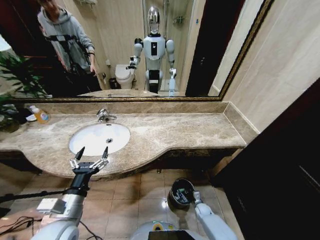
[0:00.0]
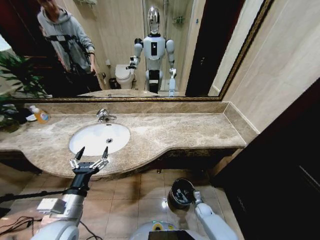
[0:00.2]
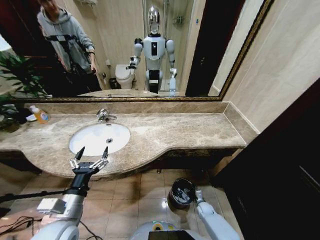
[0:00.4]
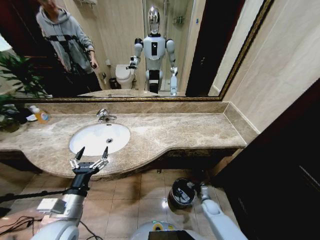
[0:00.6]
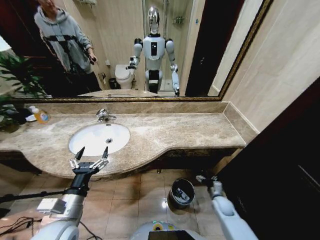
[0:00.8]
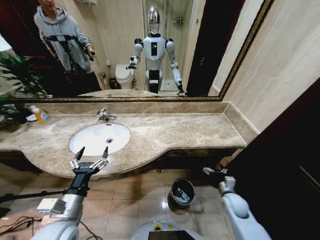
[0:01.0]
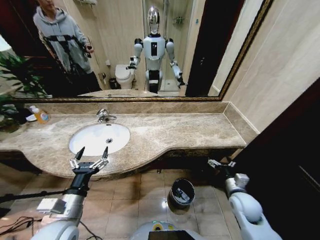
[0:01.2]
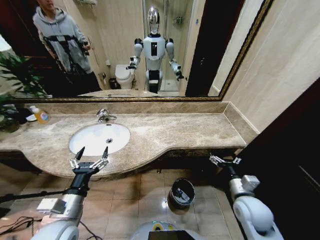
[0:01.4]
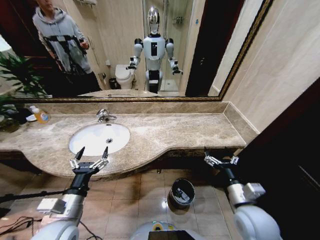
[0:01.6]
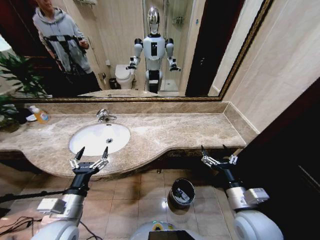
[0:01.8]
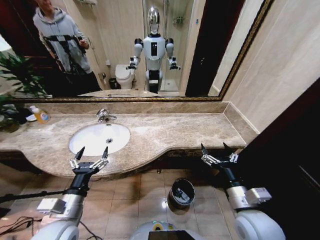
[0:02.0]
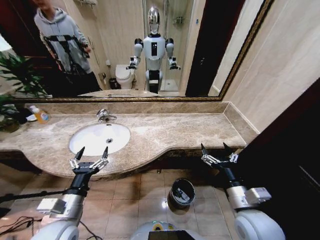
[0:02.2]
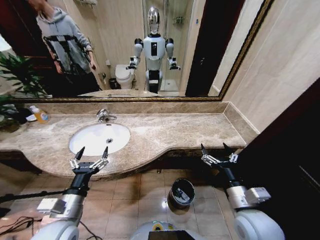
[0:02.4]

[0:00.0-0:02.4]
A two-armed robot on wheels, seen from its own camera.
Task of the whole recording: Pick up the trash from the sink and place it in the trash bin.
0:00.0 to 0:01.2: The right gripper travels upward by some 30 cm, and opens up.
0:01.2 to 0:02.4: The right gripper shifts about 15 cm upward, to the left and backward.

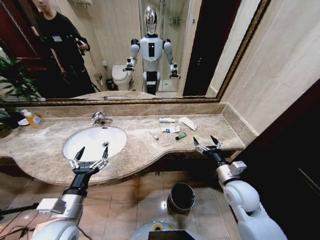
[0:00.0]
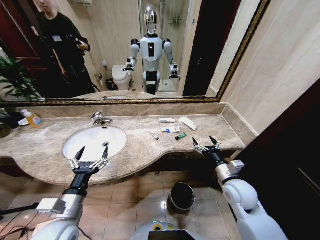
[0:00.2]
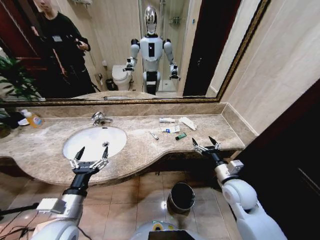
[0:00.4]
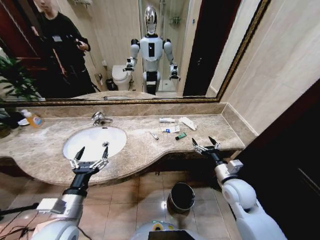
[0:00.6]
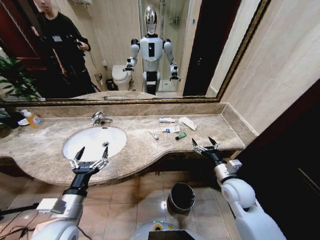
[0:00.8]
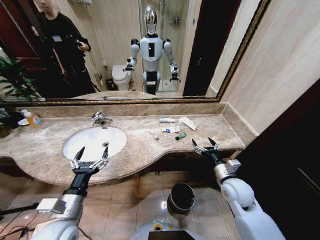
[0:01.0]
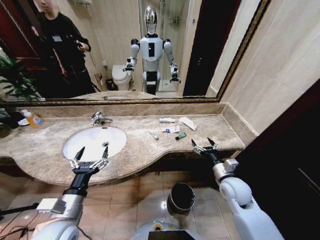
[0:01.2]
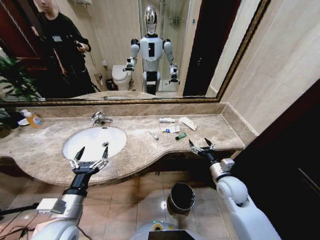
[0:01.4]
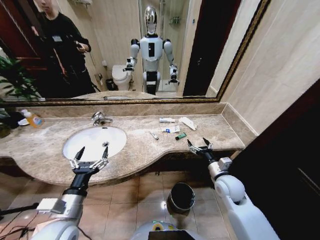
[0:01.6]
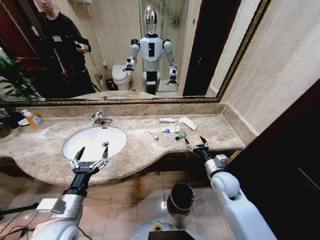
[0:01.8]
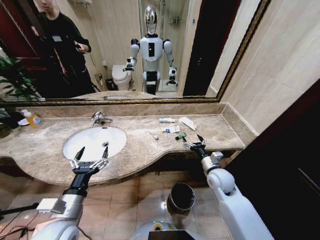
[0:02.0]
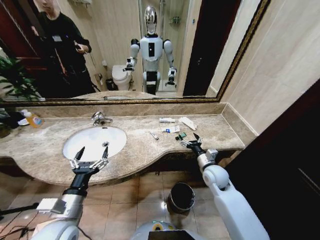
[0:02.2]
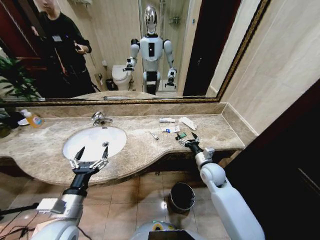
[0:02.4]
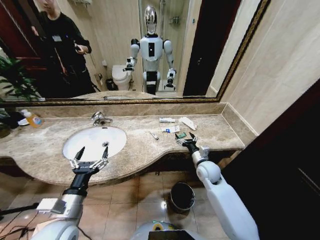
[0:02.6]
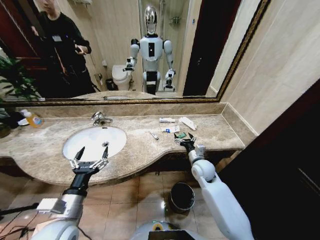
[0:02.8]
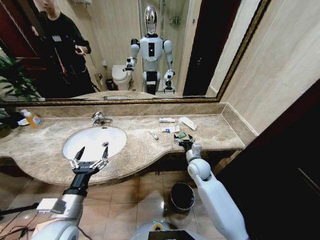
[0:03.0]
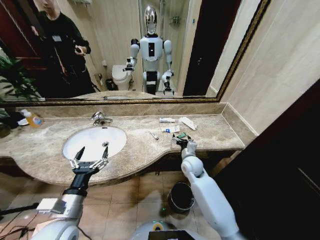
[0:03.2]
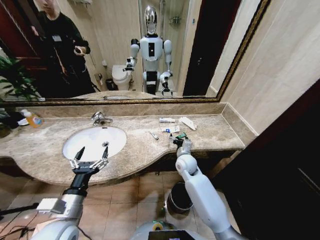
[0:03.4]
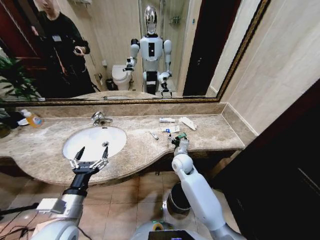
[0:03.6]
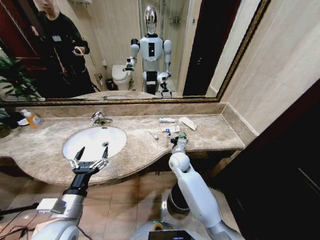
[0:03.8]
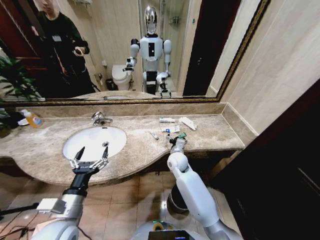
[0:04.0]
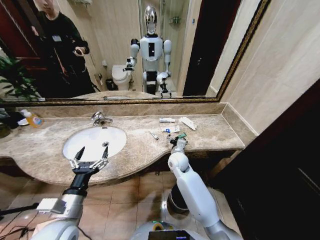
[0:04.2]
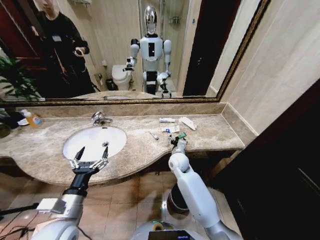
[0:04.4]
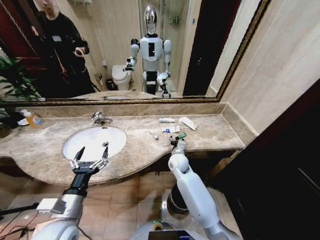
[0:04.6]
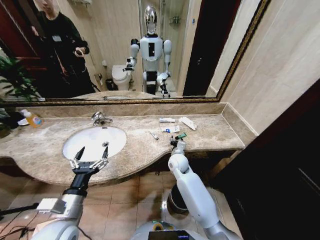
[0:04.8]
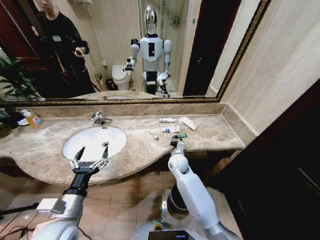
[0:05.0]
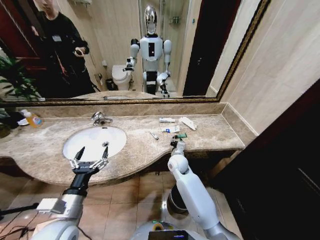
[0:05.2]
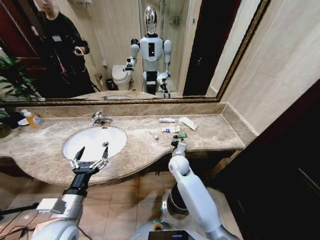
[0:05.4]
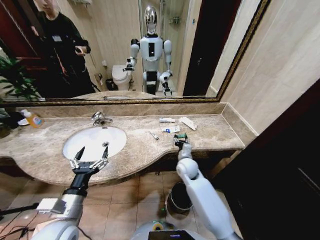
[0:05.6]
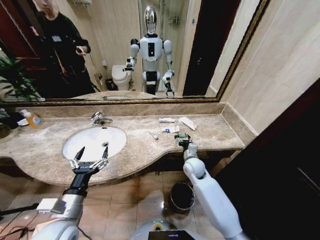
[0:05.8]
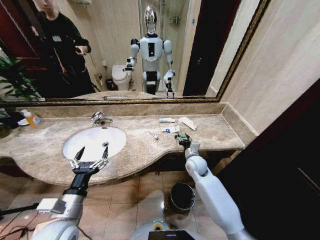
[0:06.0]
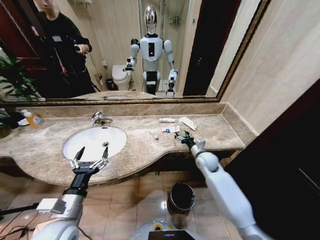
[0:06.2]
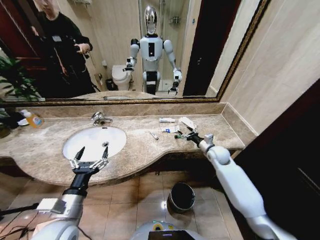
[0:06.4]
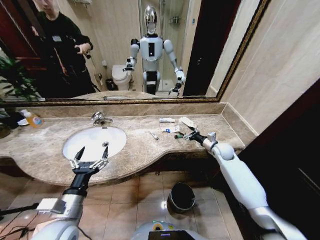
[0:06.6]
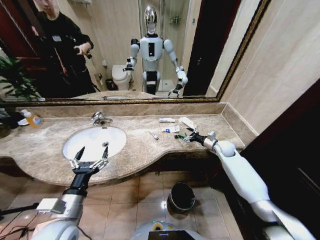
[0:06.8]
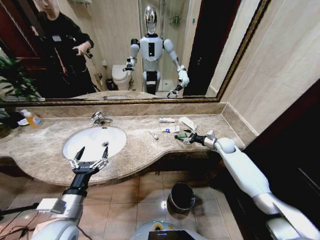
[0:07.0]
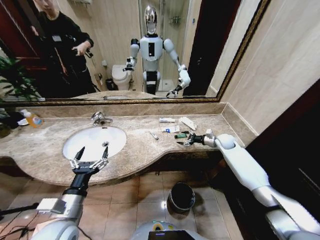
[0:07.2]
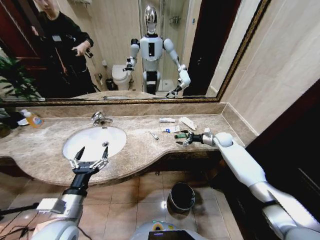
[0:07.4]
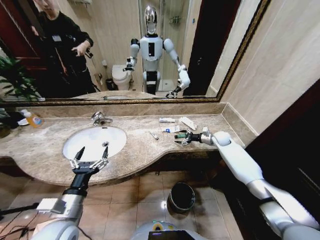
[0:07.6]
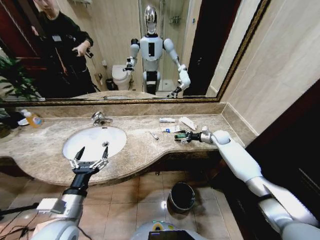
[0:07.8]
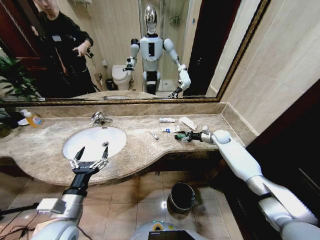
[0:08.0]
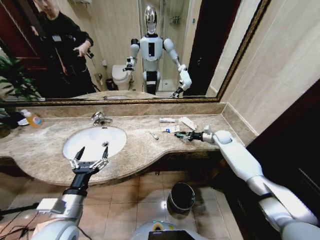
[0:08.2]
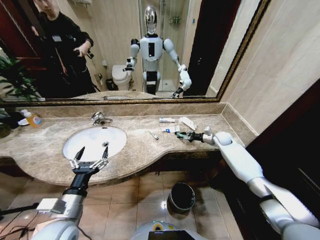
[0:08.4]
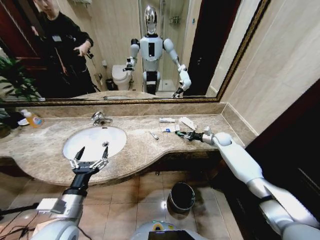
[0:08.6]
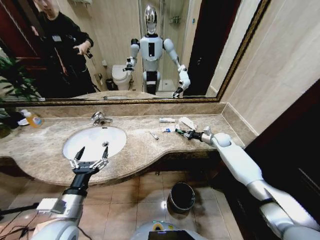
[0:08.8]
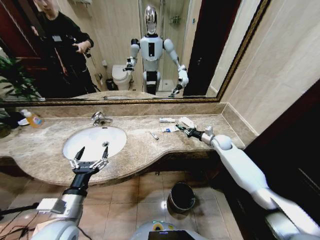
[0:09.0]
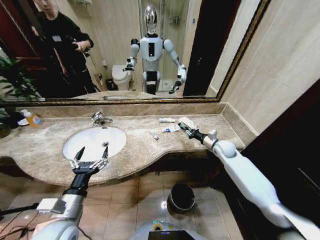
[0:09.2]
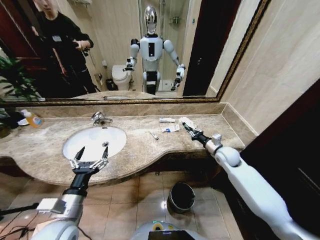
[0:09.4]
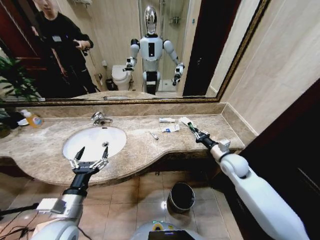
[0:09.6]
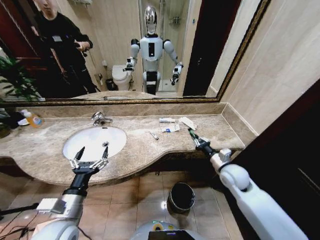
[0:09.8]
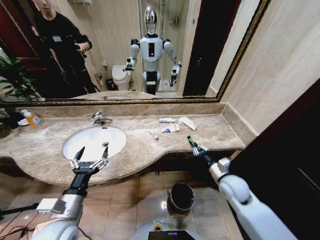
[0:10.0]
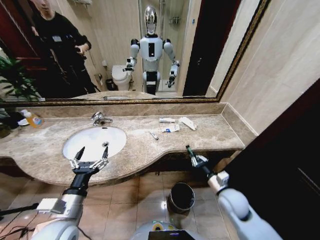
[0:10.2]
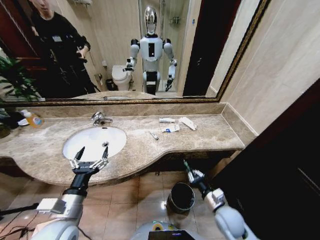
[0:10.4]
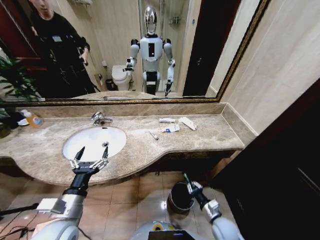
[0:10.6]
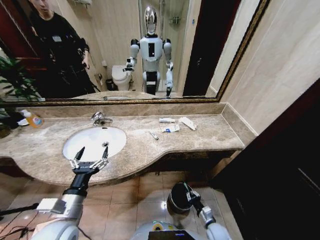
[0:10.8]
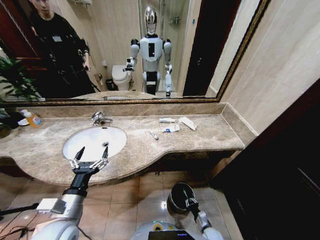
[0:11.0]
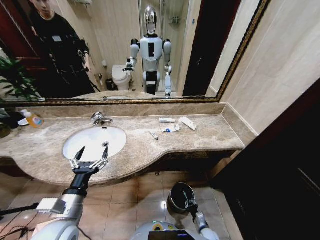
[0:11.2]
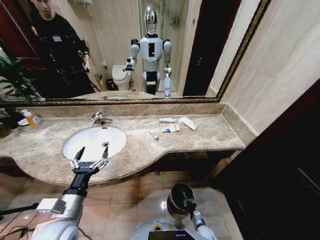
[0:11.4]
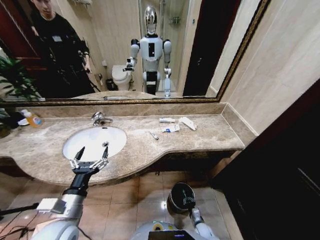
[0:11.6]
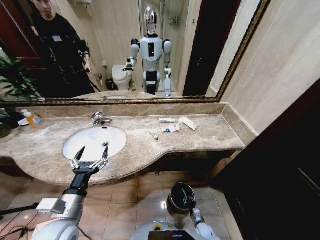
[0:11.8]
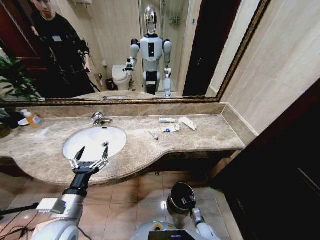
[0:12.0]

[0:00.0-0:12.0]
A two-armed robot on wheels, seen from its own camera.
Task of the whole recording: Pick up the trash from the sink and place it in the trash bin.
0:01.6 to 0:03.0: The right gripper is displaced to the left and forward by approximately 15 cm.
0:03.0 to 0:04.4: The right gripper goes approximately 10 cm to the left.
0:04.4 to 0:06.0: The right gripper shifts roughly 10 cm to the right.
0:06.0 to 0:07.6: The right gripper travels to the right and forward by roughly 25 cm, and opens.
0:07.6 to 0:09.0: The right gripper closes up.
0:09.0 to 0:10.4: The right gripper goes approximately 30 cm backward.
0:10.4 to 0:12.0: The right gripper moves downward, some 30 cm.

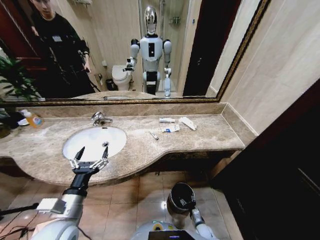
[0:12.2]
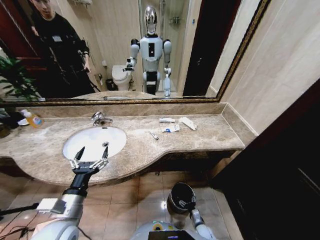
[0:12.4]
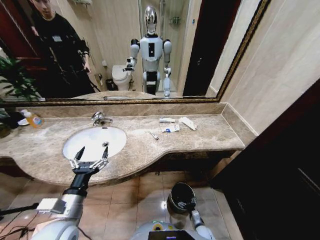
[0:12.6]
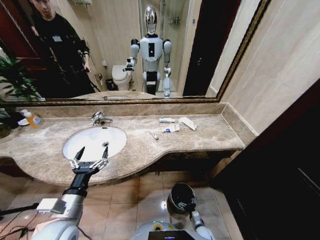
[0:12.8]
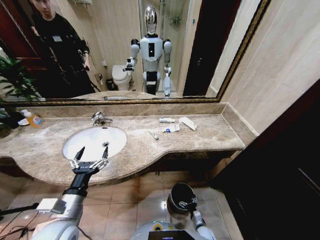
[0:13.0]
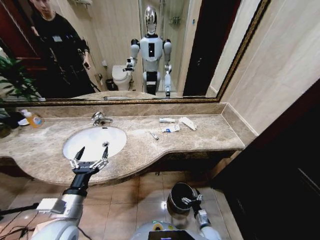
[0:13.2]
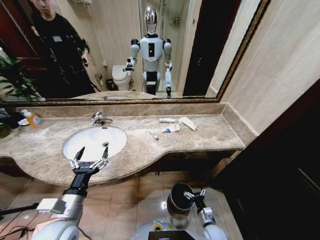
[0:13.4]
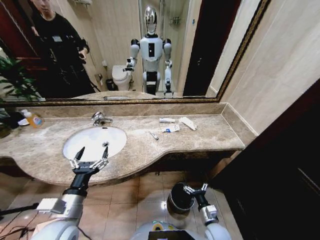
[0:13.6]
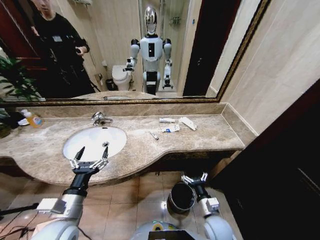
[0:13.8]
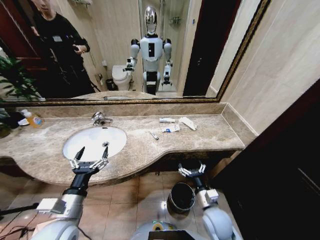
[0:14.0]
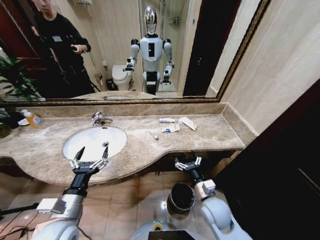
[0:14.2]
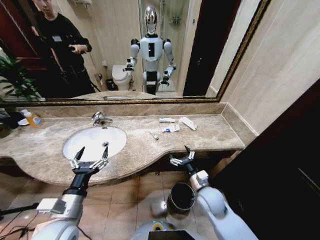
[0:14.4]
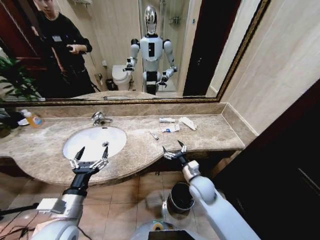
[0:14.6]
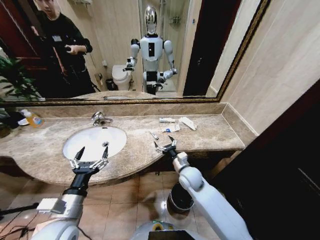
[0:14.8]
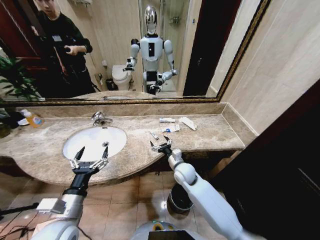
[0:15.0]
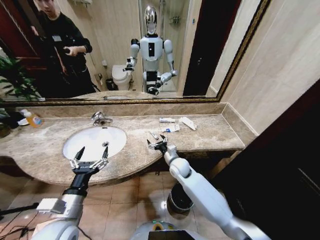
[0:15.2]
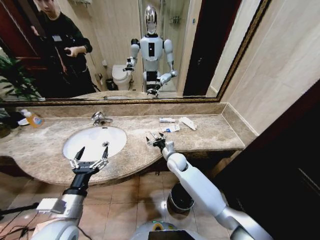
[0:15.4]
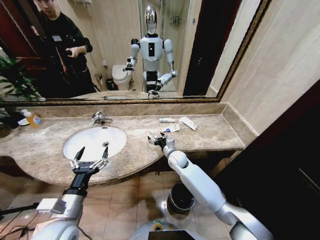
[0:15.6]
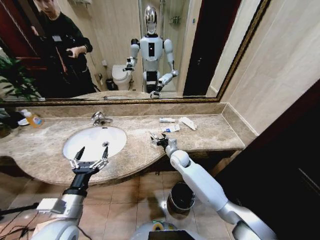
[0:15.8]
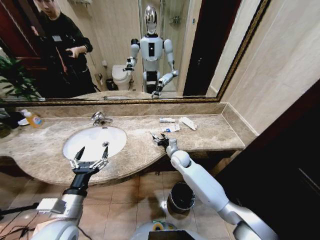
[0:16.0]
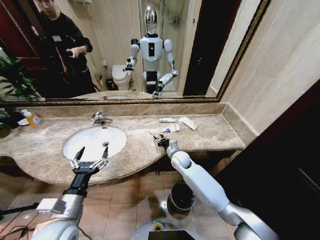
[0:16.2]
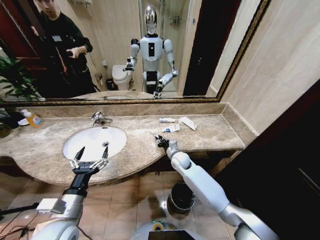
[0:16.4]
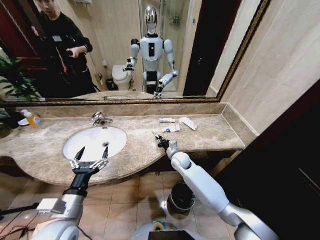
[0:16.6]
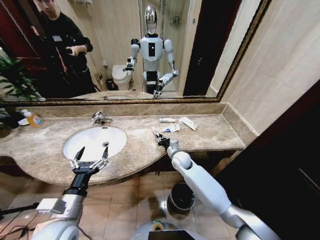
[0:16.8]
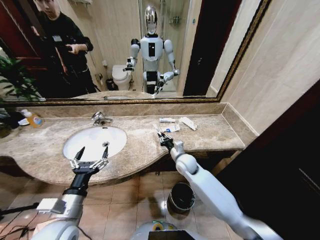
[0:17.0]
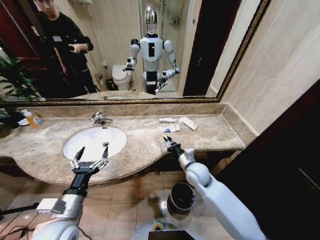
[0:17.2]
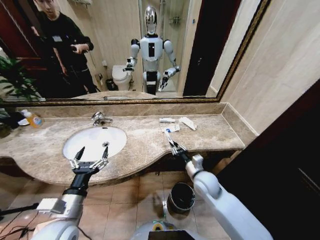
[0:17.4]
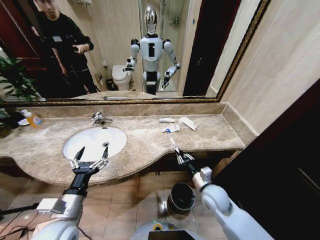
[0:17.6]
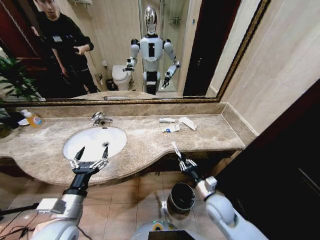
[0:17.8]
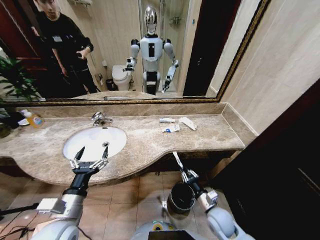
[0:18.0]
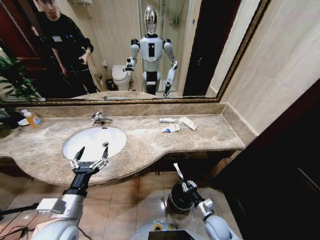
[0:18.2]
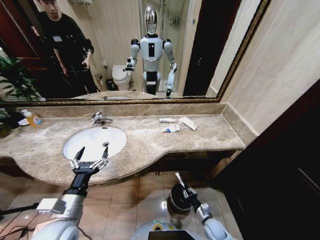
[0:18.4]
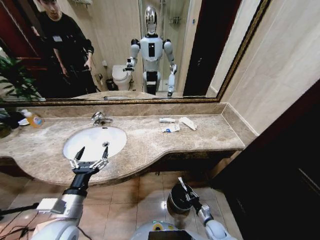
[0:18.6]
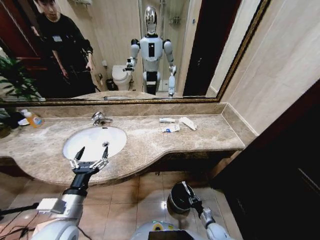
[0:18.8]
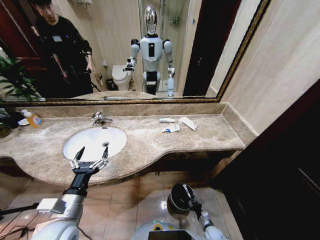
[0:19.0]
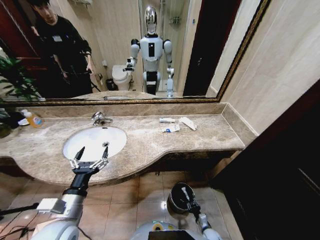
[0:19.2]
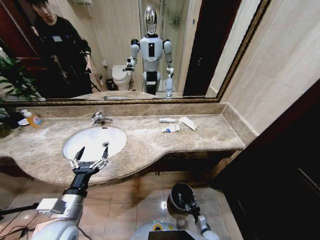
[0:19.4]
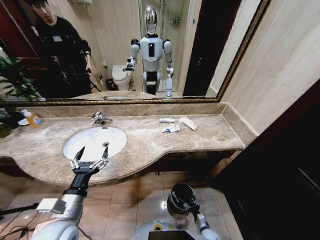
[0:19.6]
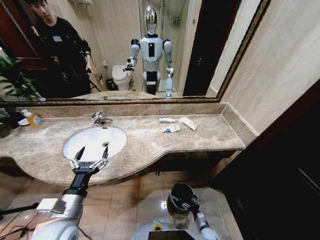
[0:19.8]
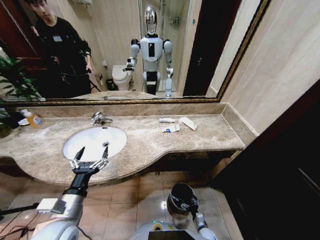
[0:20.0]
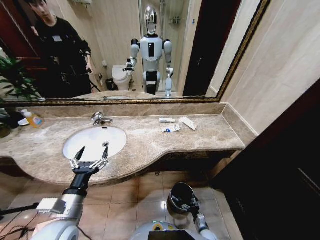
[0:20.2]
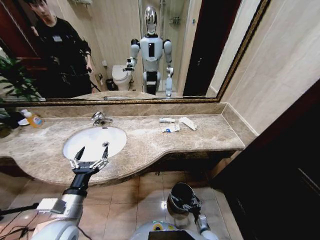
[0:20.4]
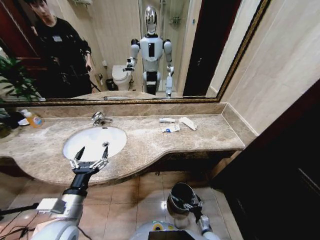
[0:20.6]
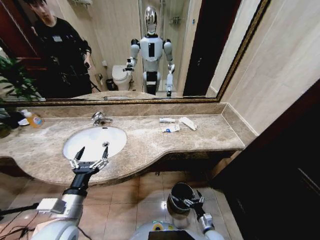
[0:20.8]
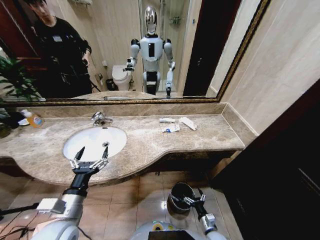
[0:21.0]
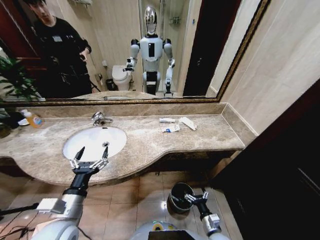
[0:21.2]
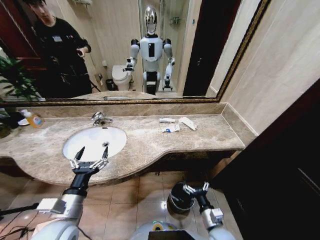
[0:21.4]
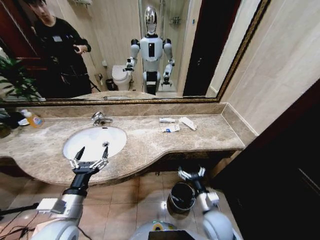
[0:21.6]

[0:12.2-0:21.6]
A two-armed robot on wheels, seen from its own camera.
Task of the whole recording: Pick up the trash from the sink and place it in the trash bin.
0:12.2 to 0:13.8: The right gripper heads upward, covering some 25 cm, and opens its fingers.
0:13.8 to 0:15.4: The right gripper travels forward and to the left by about 30 cm.
0:15.4 to 0:17.0: The right gripper changes place by about 5 cm, and closes its fingers.
0:17.0 to 0:18.4: The right gripper shifts approximately 35 cm downward, backward and to the right.
0:18.4 to 0:20.0: The right gripper goes about 15 cm downward, and opens up.
0:20.0 to 0:21.6: The right gripper is displaced upward by roughly 30 cm.
